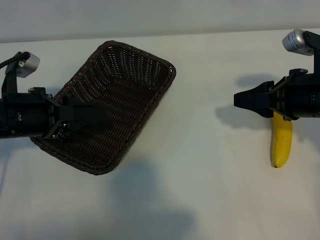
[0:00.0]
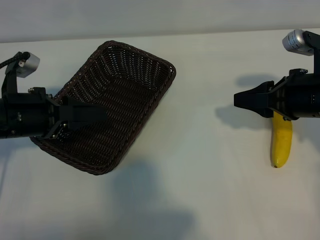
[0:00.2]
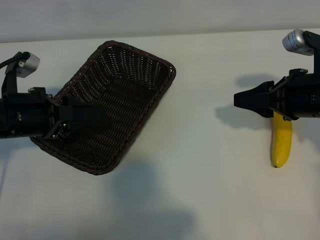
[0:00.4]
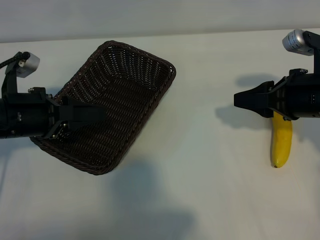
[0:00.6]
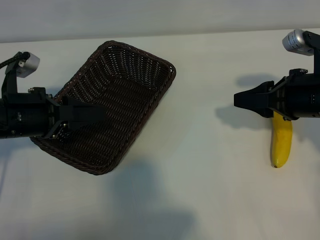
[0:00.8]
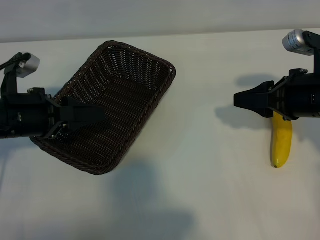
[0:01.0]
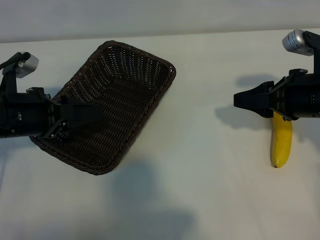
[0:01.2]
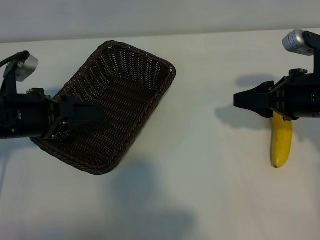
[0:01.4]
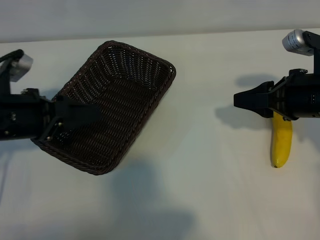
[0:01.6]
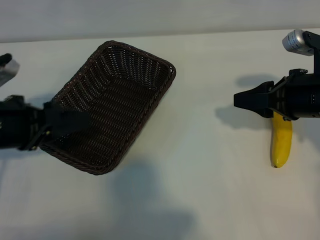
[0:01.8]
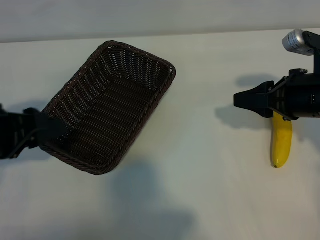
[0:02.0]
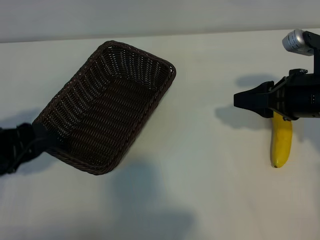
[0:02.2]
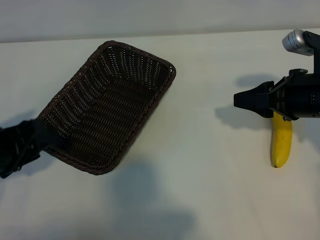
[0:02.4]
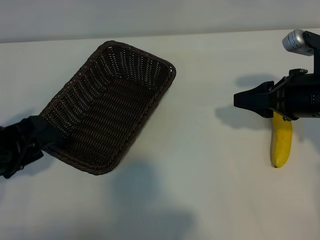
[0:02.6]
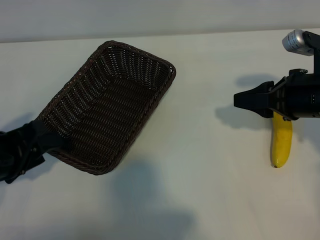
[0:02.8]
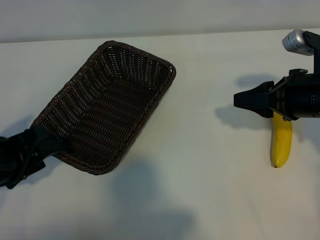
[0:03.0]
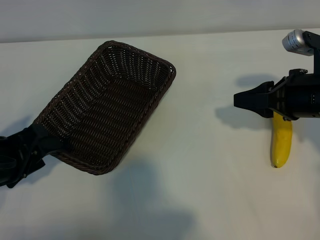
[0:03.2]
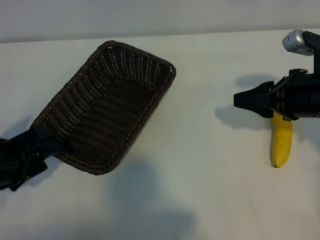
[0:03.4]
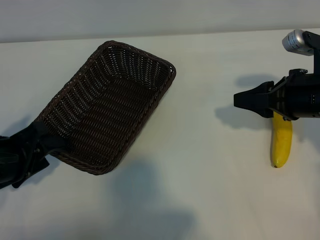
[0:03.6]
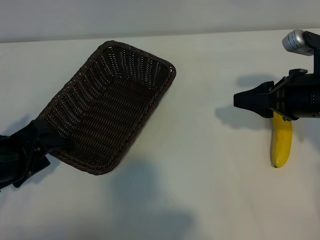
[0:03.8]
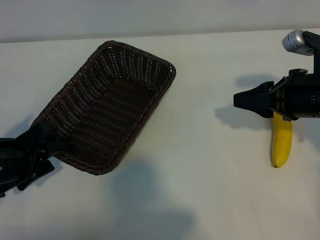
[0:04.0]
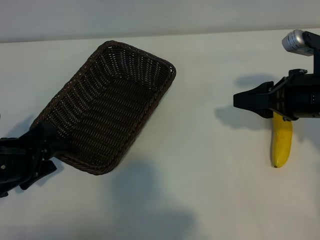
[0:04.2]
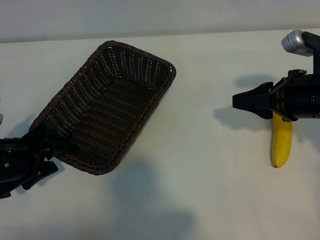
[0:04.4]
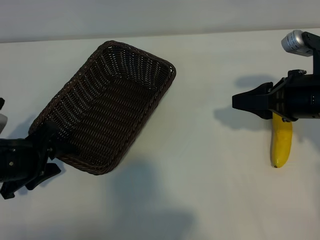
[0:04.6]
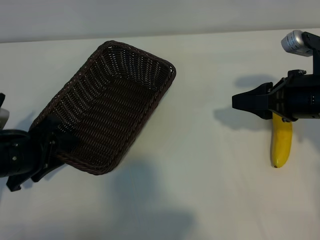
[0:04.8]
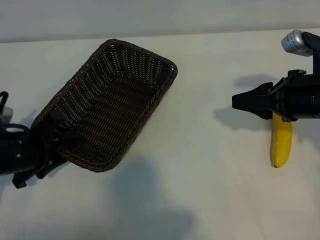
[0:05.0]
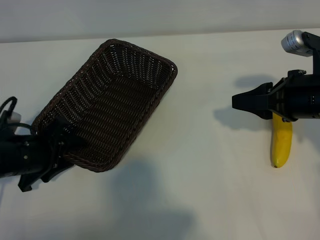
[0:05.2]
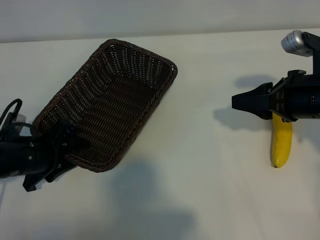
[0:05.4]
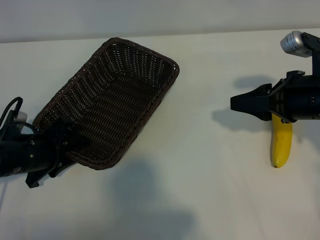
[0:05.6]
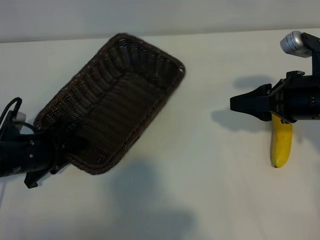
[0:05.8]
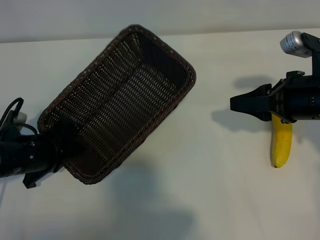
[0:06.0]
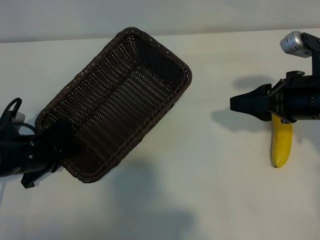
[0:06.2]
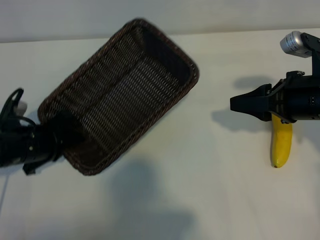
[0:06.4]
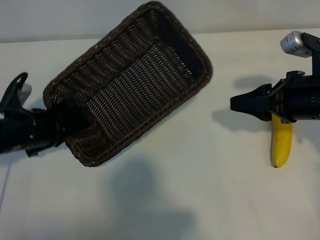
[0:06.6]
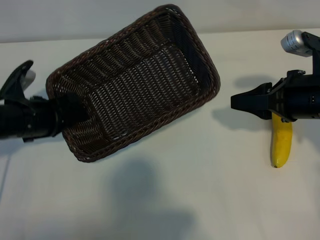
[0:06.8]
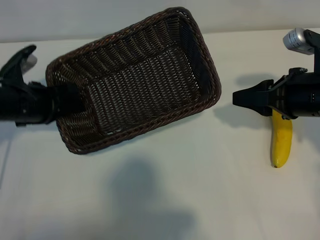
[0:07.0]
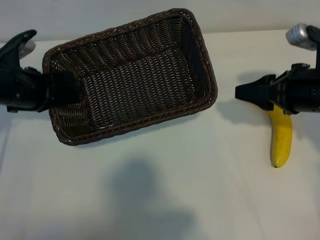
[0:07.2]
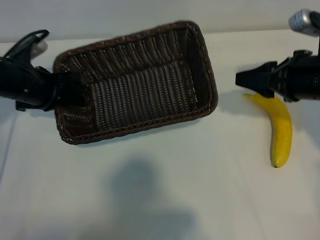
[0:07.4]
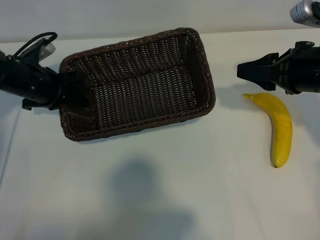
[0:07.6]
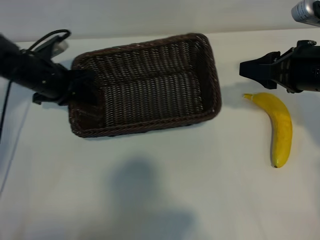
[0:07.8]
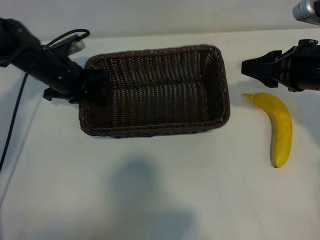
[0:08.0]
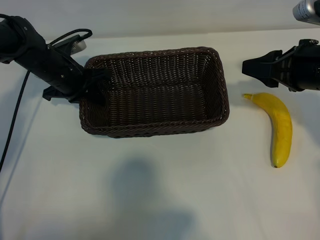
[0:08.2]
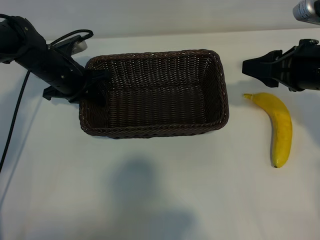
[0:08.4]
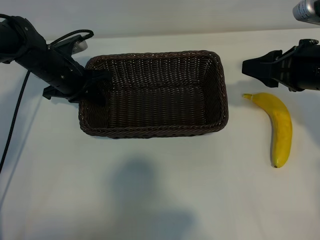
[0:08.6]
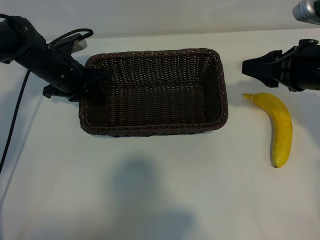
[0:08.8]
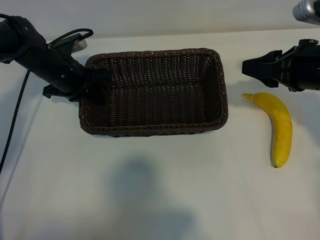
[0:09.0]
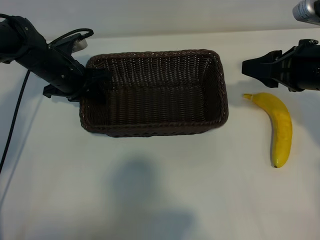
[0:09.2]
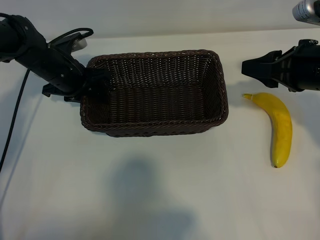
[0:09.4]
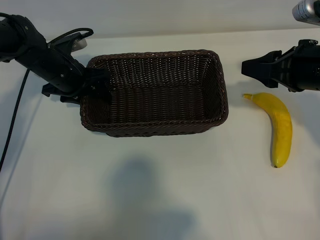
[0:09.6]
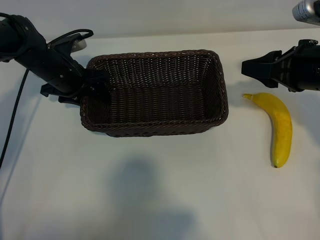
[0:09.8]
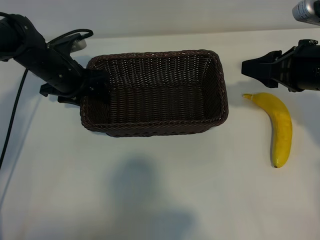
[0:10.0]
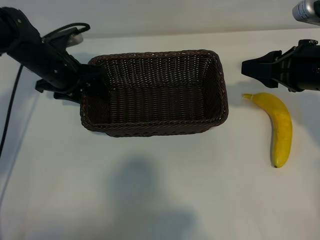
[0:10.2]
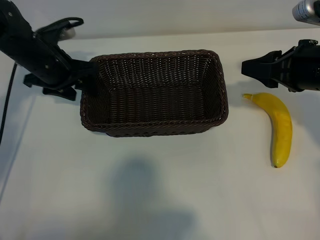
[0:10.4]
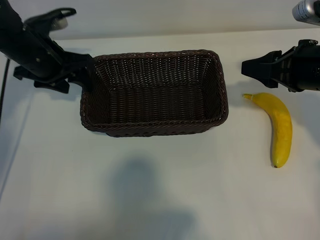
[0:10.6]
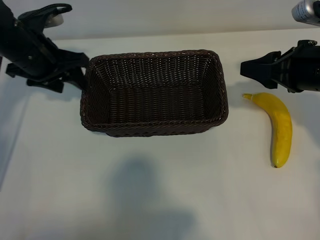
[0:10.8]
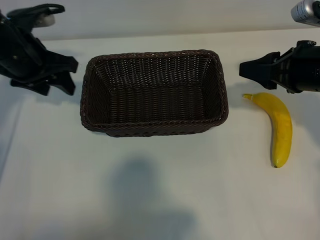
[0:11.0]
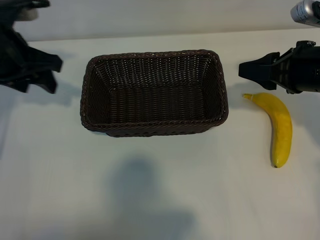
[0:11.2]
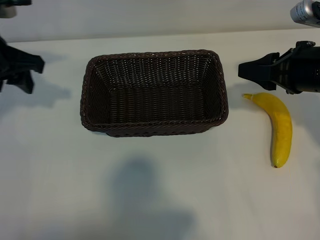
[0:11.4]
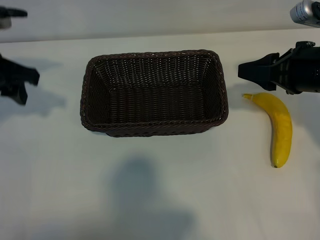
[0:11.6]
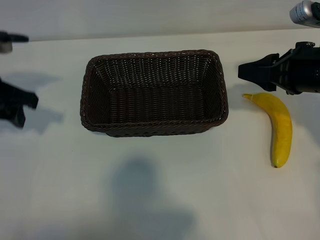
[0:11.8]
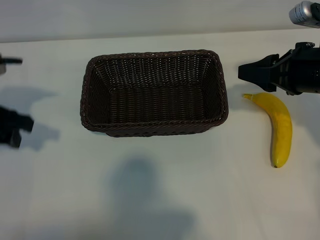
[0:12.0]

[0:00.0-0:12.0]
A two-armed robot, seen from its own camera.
Task of the whole recording: pick up the banana and put it into the basket.
Step, 0:01.0 to 0:06.0: Grasp the basket with the left gripper.
Step, 0:06.2 to 0:11.0: Place the basket in the center of the table with the left gripper.

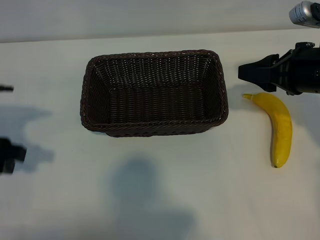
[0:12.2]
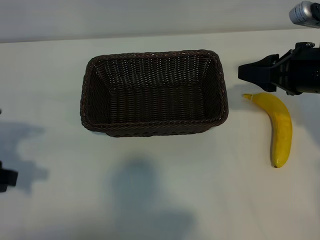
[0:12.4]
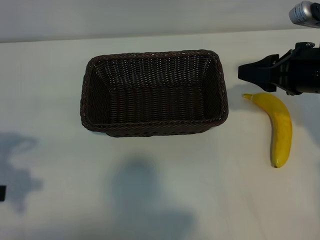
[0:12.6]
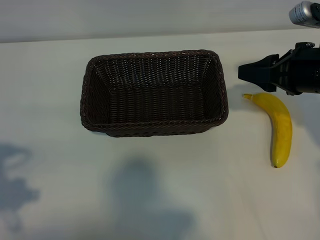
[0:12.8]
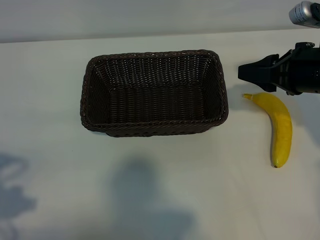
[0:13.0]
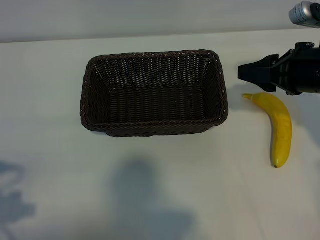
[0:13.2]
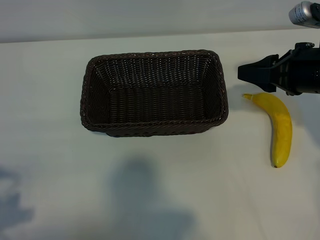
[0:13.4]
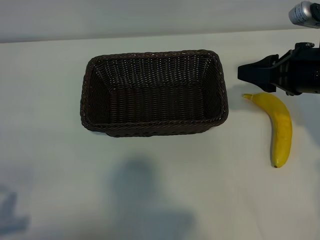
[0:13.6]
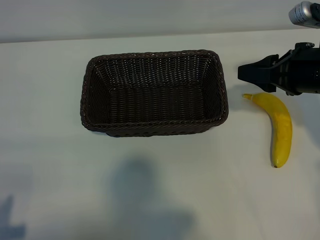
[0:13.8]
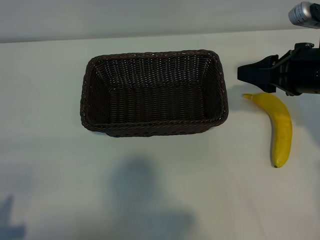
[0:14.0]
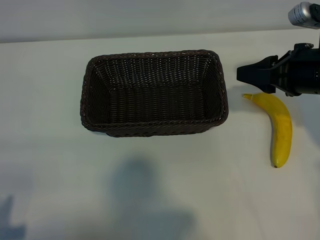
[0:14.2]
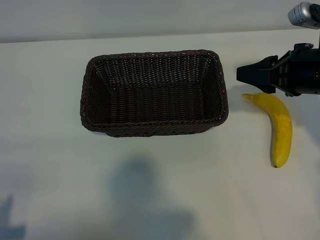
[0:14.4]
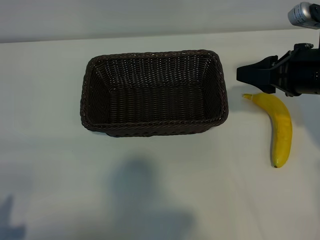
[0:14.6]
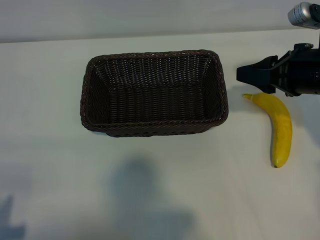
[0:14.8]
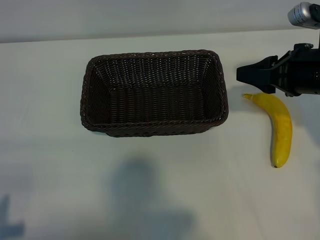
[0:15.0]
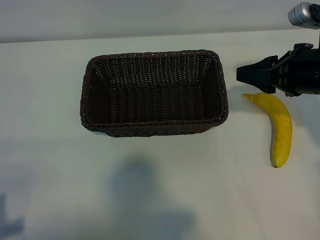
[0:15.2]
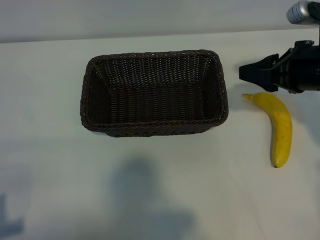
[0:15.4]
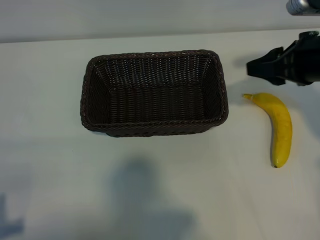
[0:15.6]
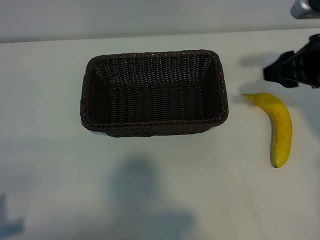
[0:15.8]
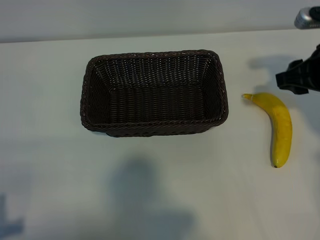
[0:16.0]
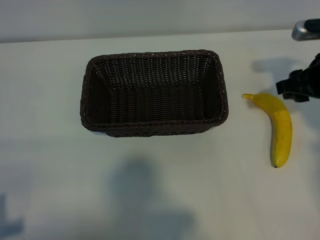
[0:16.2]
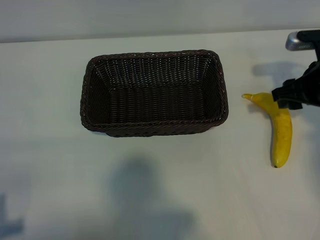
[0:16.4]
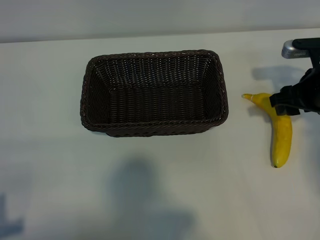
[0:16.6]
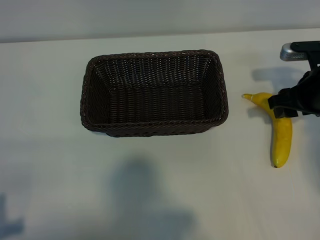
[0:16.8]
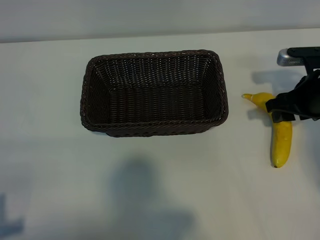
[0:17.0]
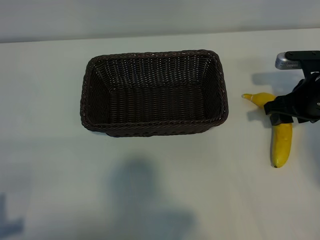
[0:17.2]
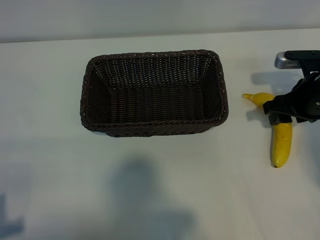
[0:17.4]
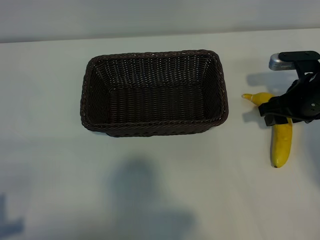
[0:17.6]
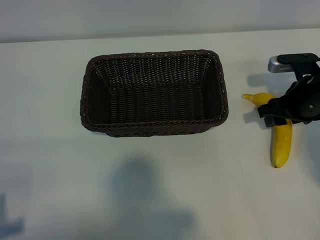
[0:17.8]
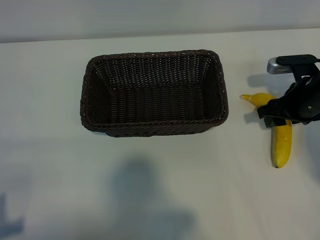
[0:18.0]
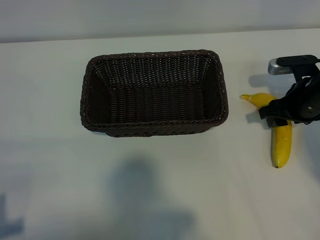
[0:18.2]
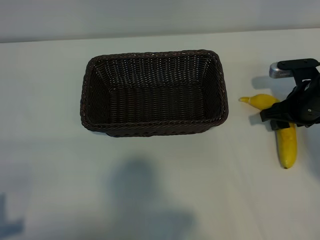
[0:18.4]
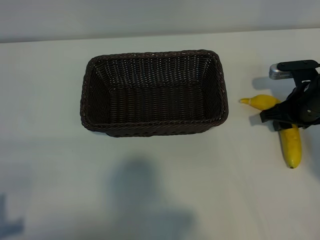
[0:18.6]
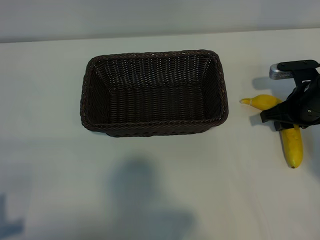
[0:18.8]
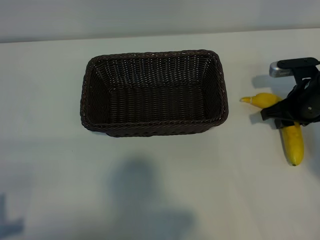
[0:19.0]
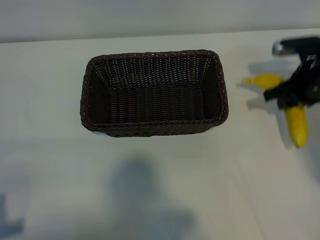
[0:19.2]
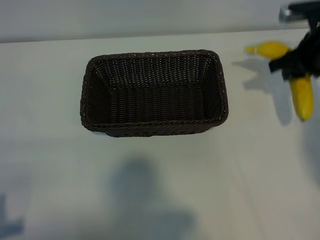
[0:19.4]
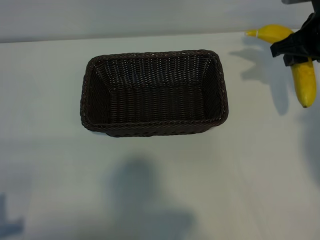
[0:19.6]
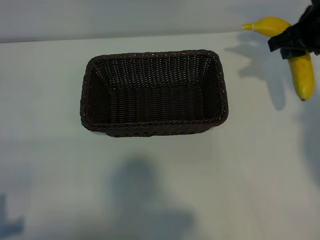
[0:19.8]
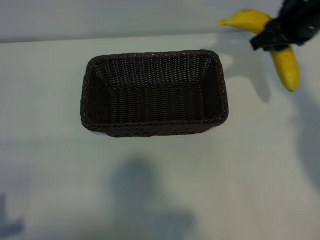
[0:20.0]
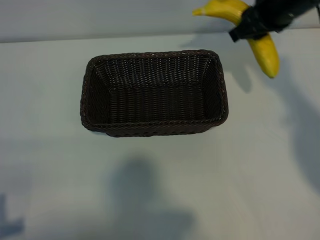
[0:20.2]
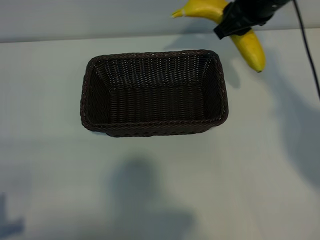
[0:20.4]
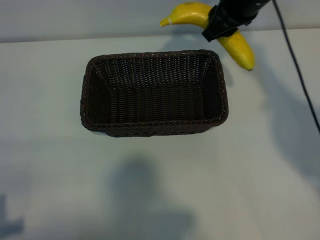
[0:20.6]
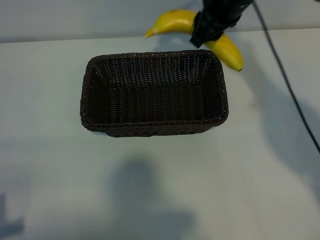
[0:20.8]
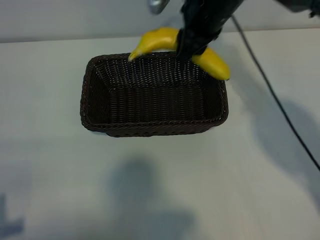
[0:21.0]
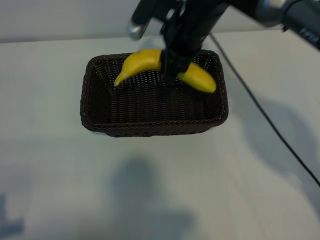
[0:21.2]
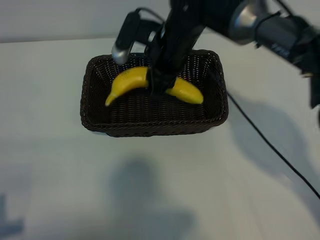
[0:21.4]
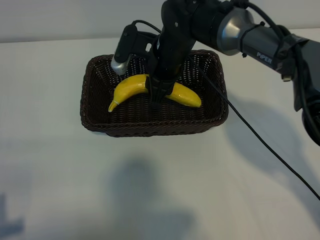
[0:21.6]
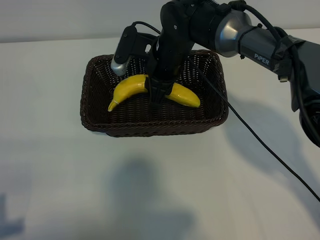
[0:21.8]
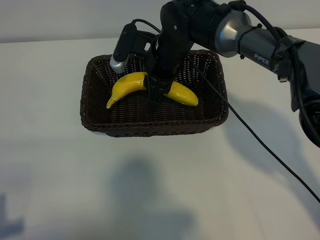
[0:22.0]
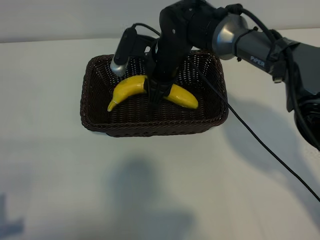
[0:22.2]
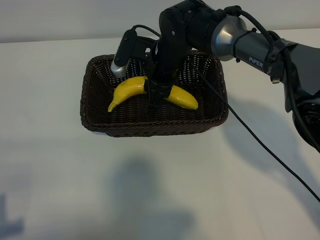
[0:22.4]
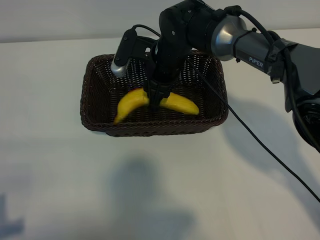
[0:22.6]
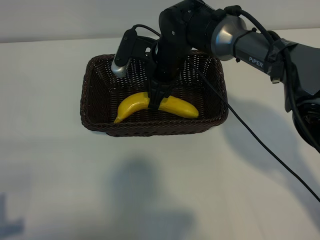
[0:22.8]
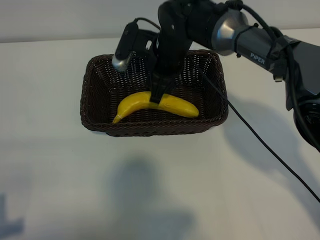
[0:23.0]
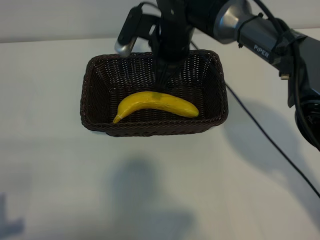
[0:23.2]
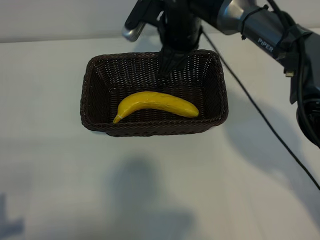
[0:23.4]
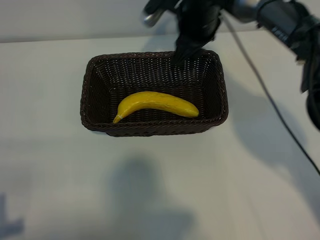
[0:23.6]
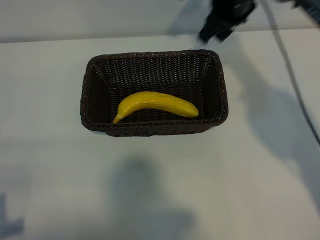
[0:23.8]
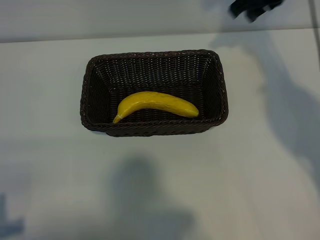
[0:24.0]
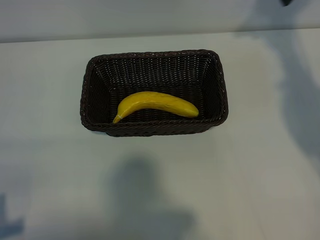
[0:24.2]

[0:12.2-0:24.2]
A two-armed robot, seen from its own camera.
Task of the whole recording: pick up the banana and put it into the basket.
Step, 0:12.2 to 0:18.8: Grasp the banana with right gripper.
Step, 0:19.0 to 0:23.2: Place the banana in the basket with right gripper.
